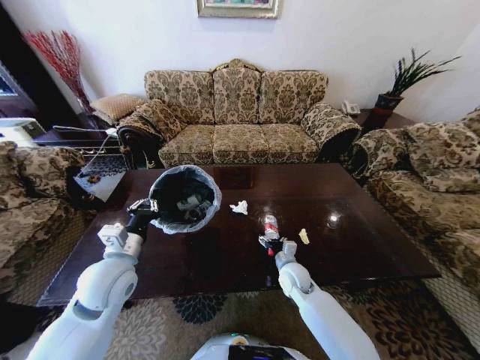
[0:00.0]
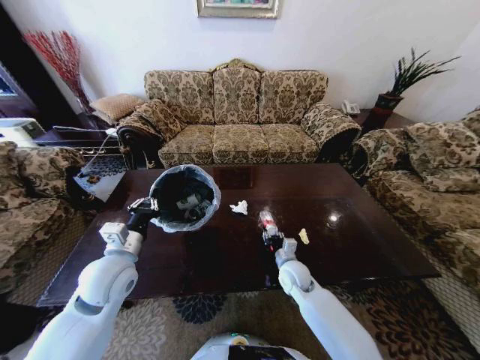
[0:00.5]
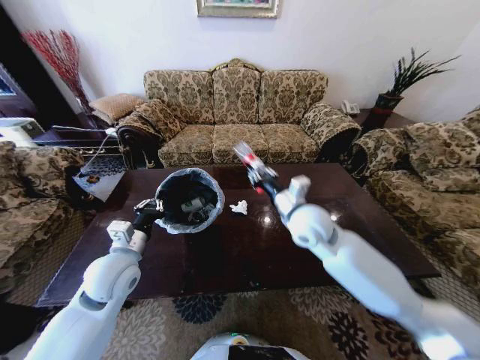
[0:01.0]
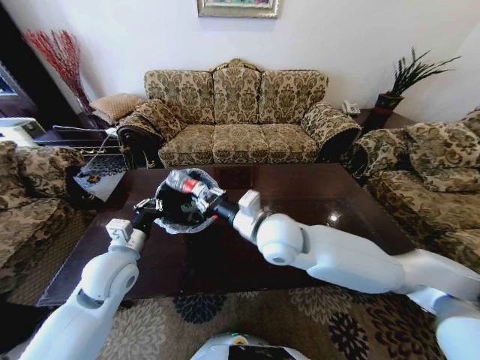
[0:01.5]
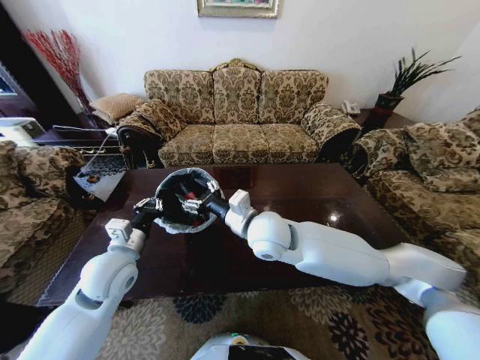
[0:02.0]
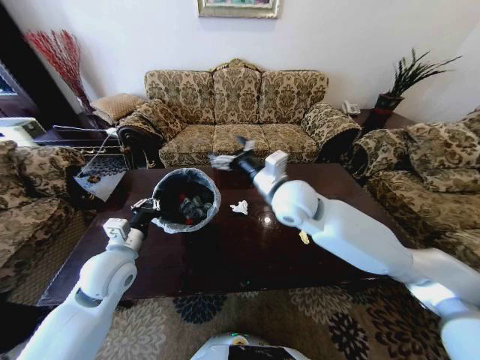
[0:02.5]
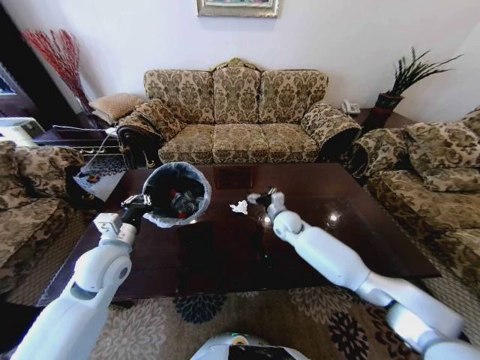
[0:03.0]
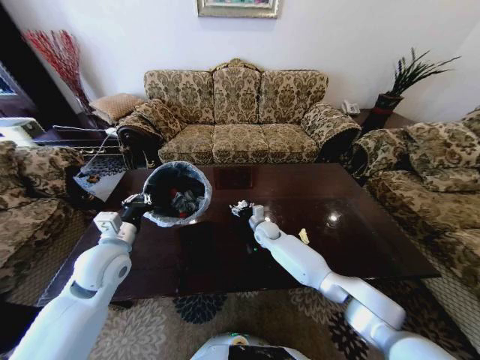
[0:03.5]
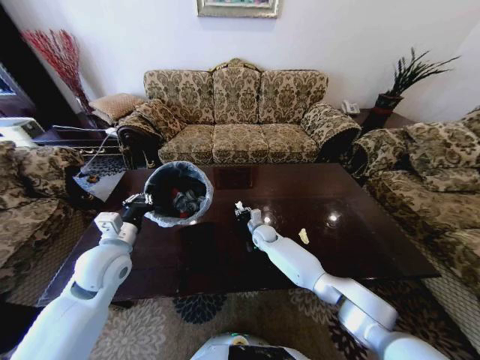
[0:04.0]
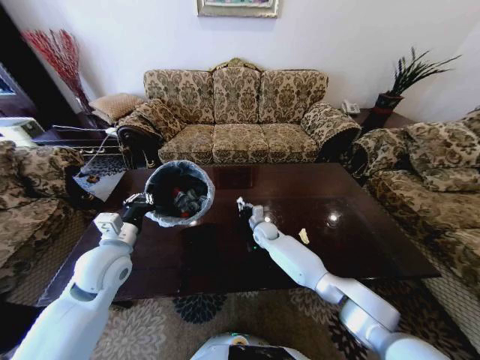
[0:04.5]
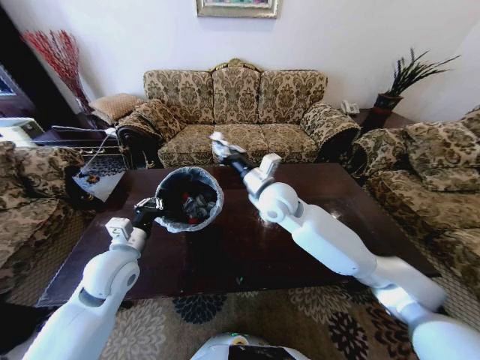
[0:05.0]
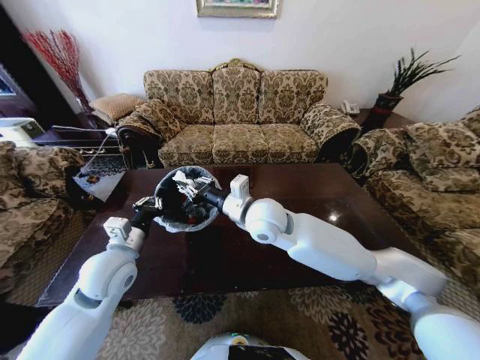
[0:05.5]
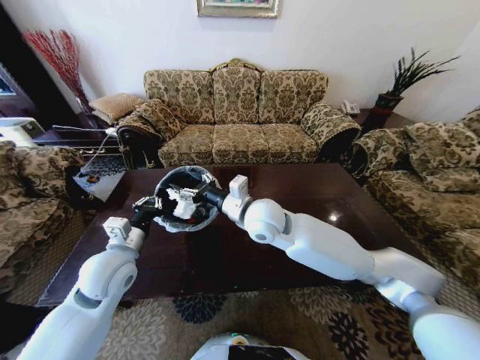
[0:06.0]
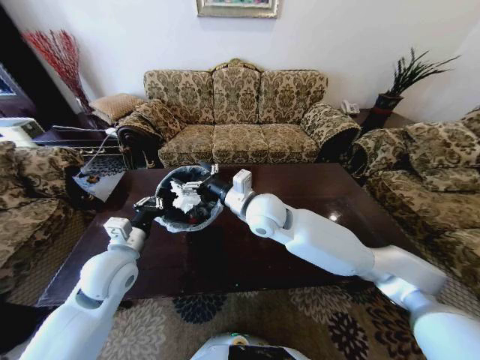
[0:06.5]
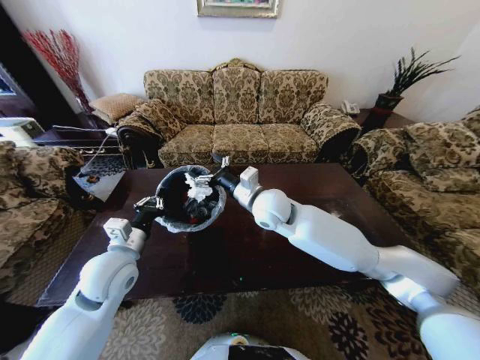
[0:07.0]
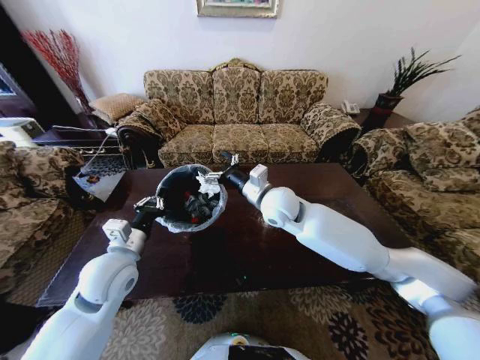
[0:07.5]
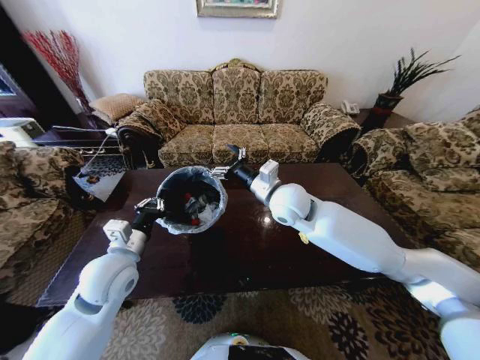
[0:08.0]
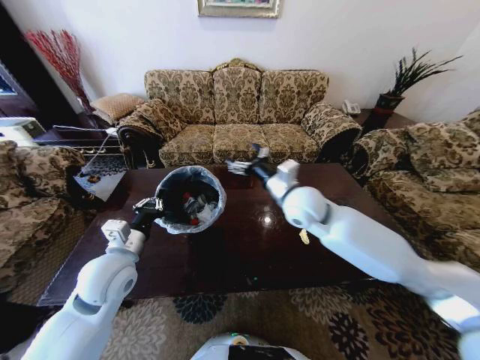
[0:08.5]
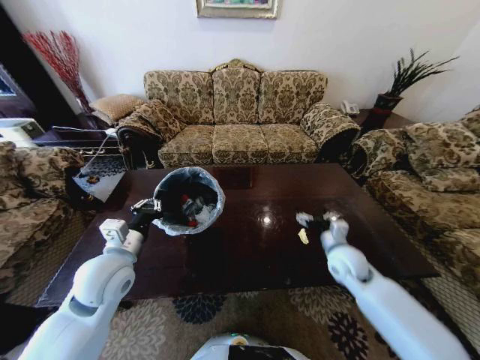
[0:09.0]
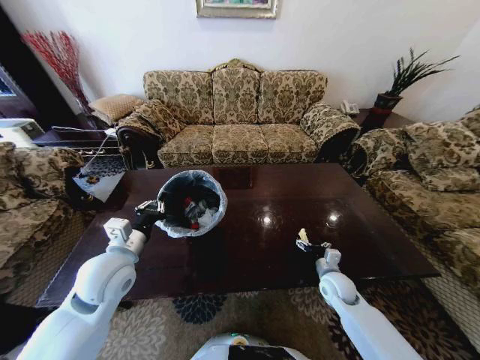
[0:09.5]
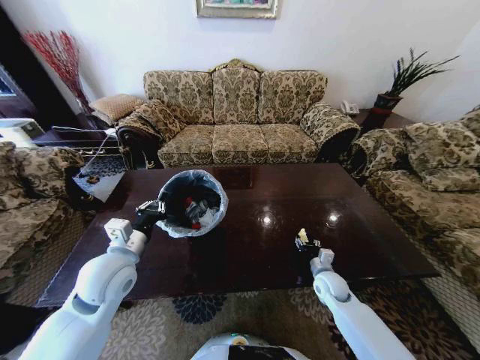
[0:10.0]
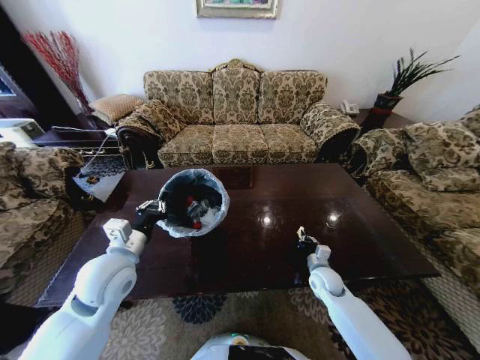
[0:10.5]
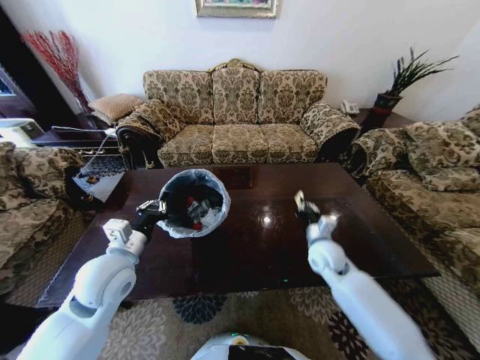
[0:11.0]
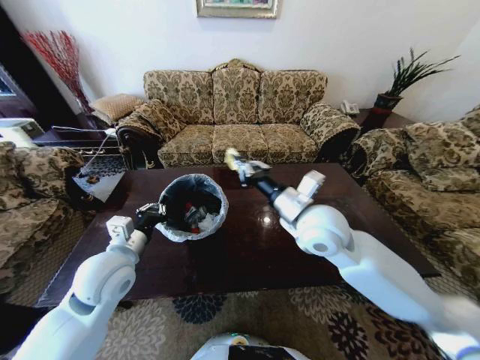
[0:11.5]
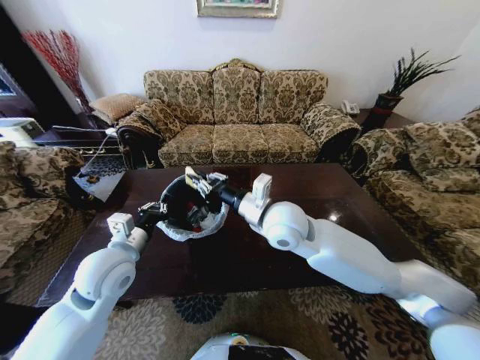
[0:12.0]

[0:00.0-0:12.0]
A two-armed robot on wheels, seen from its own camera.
Task of the whole recording: Move to the front of the table and place the trash on the table into the trash bin.
0:00.0 to 0:02.0: The right gripper heads upward and to the left, covering some 30 cm, and closes and opens again.
0:02.0 to 0:04.0: The right gripper is displaced downward and forward by about 35 cm.
0:04.0 to 0:06.0: The right gripper goes about 30 cm upward and backward.
0:06.0 to 0:08.0: The right gripper moves to the right, some 5 cm.
0:08.0 to 0:10.0: The right gripper heads downward and to the right, covering roughly 35 cm, and closes its fingers.
0:10.0 to 0:12.0: The right gripper travels upward and to the left by about 40 cm, and closes.

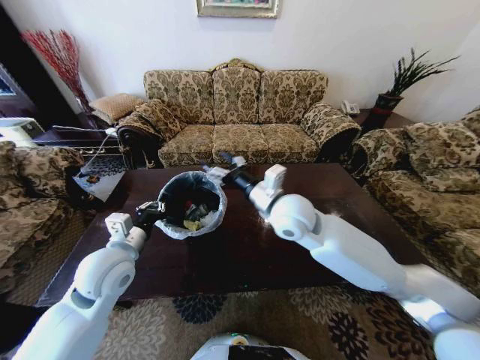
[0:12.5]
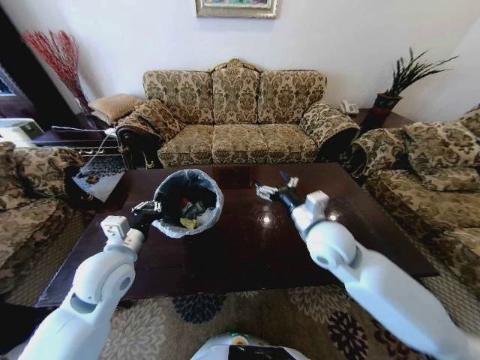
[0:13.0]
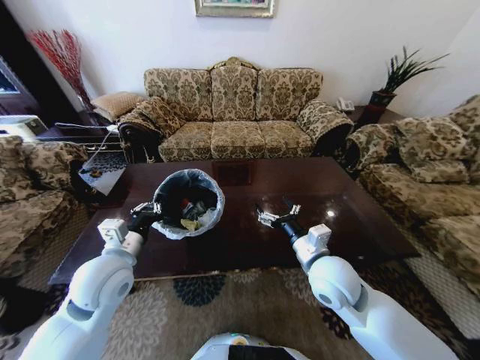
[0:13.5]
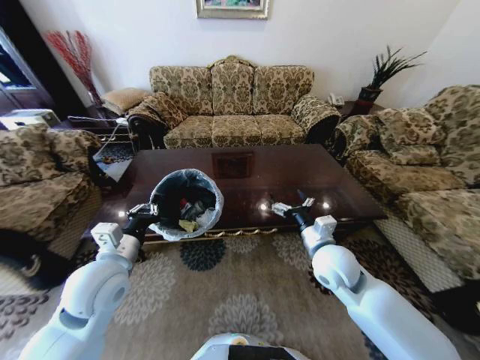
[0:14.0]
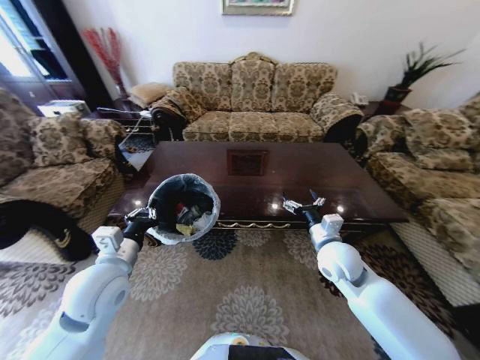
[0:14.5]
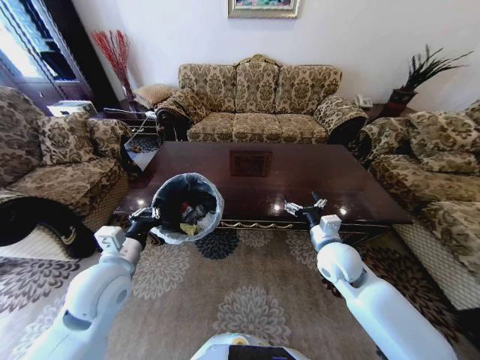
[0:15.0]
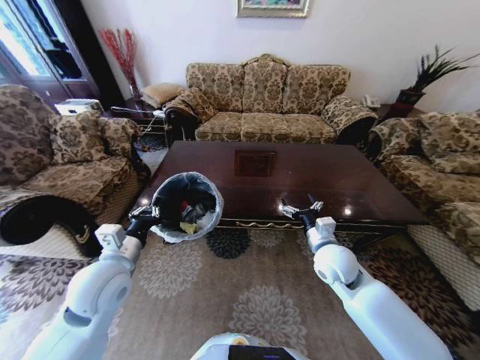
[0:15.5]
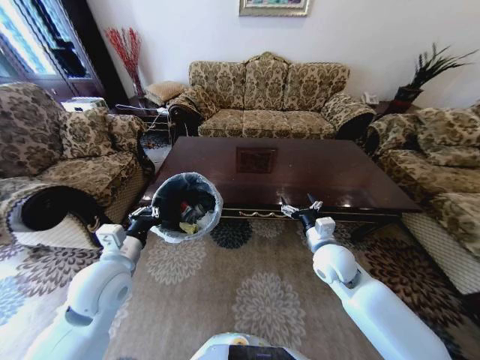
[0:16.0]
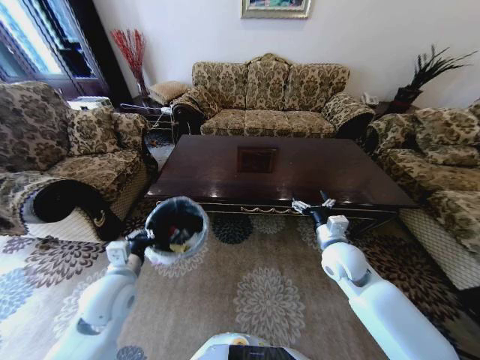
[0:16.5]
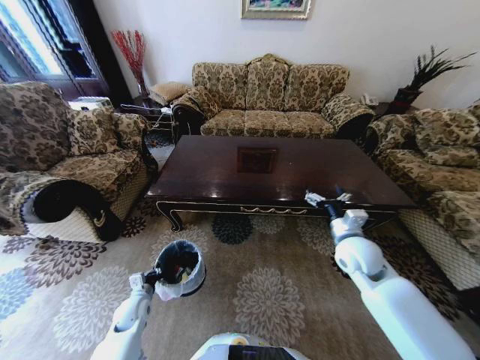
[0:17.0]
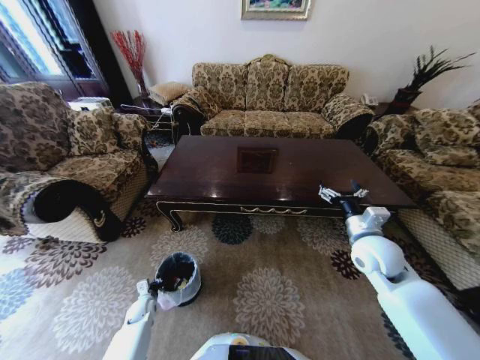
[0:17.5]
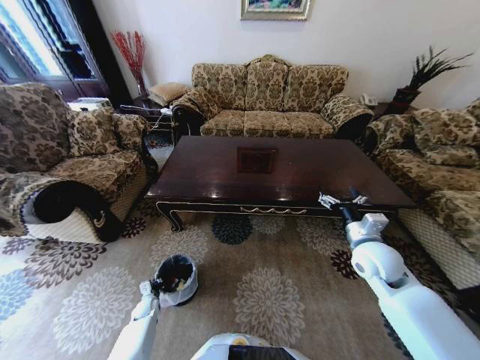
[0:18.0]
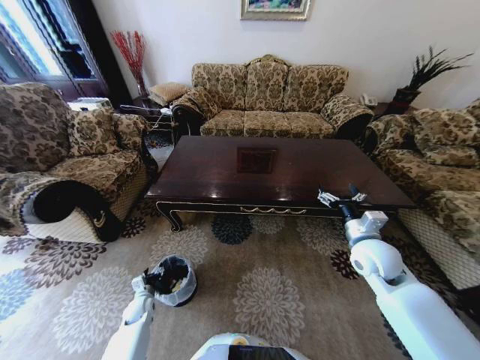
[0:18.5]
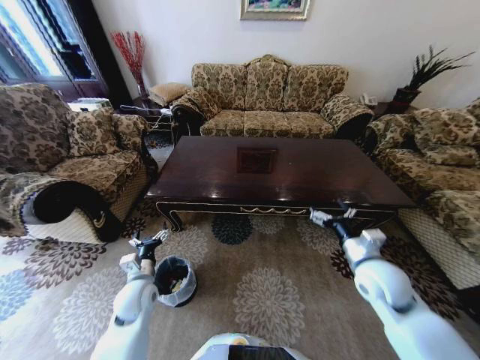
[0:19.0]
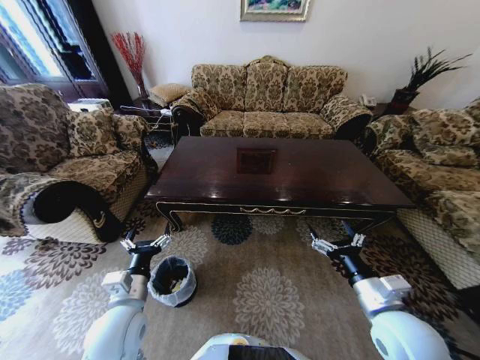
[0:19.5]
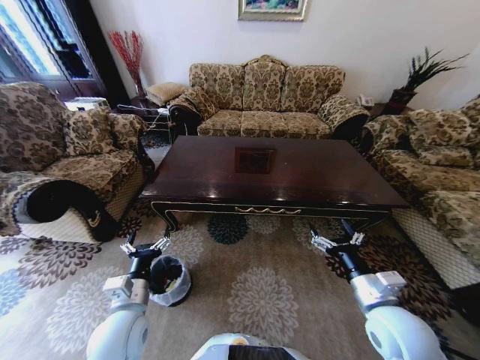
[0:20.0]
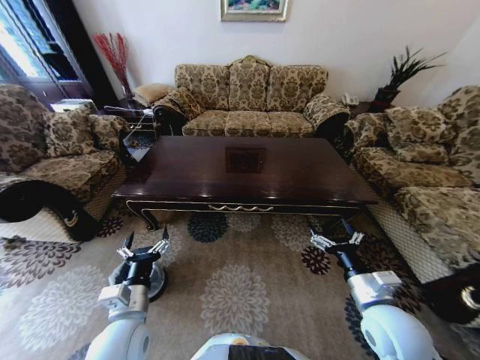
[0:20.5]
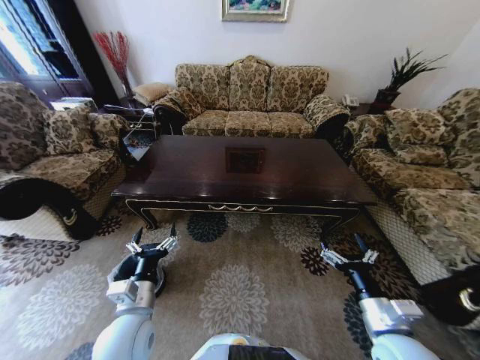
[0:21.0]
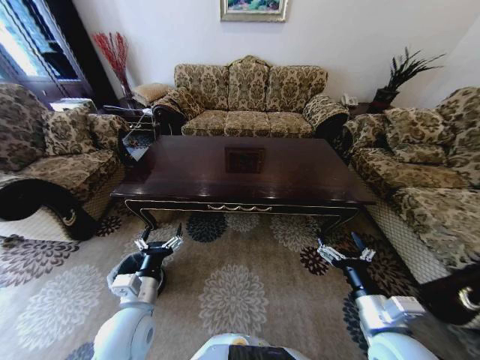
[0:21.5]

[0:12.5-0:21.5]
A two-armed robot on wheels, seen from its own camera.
Task of the whole recording: Move to the front of the table and place the trash on the table into the trash bin.
0:12.5 to 0:14.5: The right gripper heads to the right and downward, covering roughly 20 cm.
0:14.5 to 0:17.0: The right gripper moves to the right, approximately 5 cm; the left gripper moves downward, roughly 30 cm.
0:17.0 to 0:19.5: The left gripper shifts about 20 cm upward and to the right, and opens; the right gripper is displaced backward by some 15 cm.
